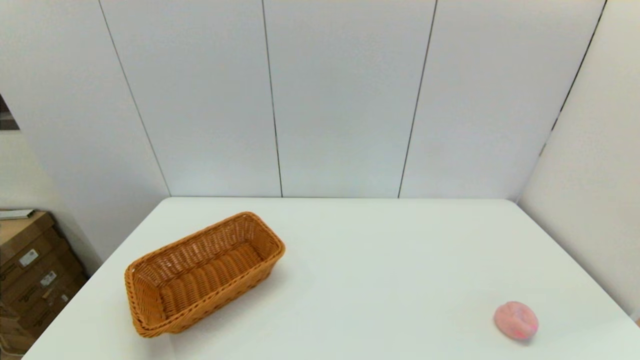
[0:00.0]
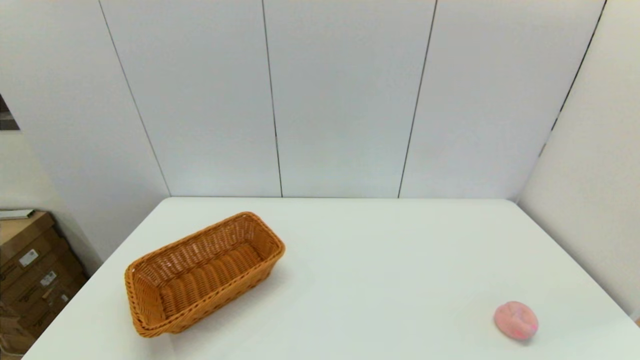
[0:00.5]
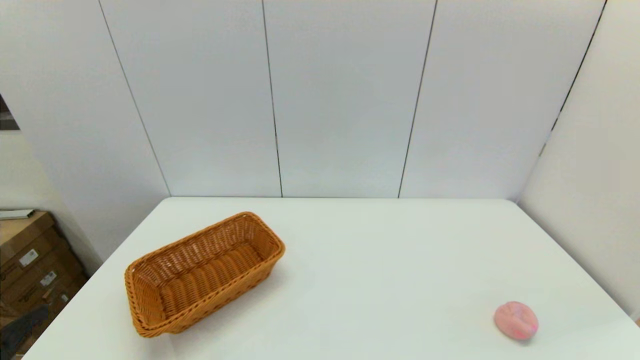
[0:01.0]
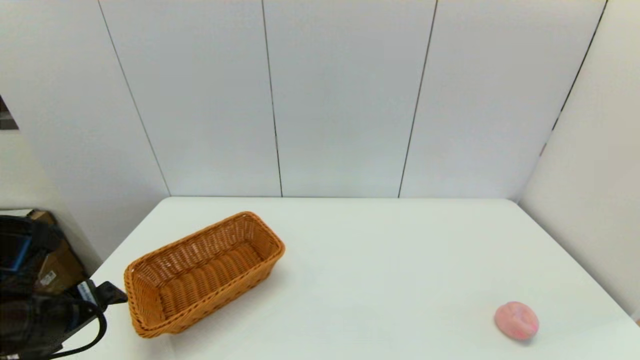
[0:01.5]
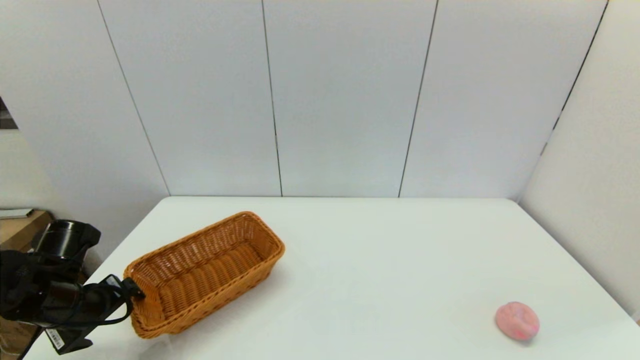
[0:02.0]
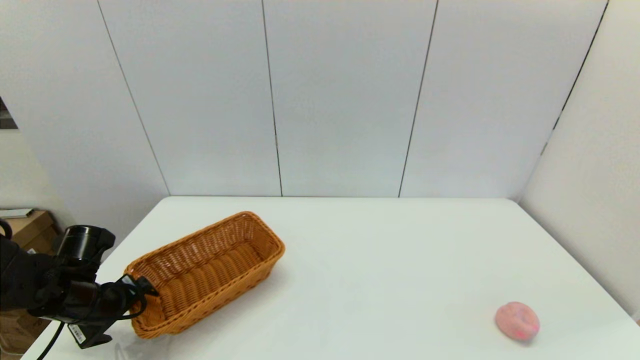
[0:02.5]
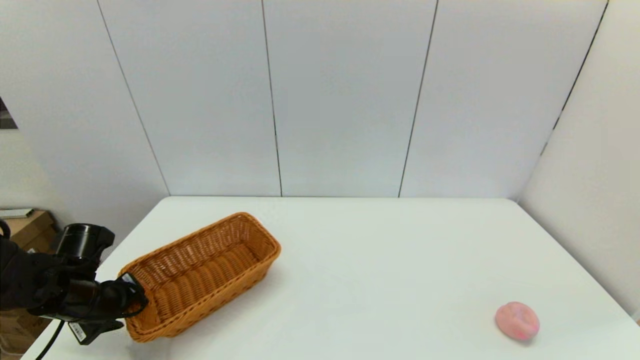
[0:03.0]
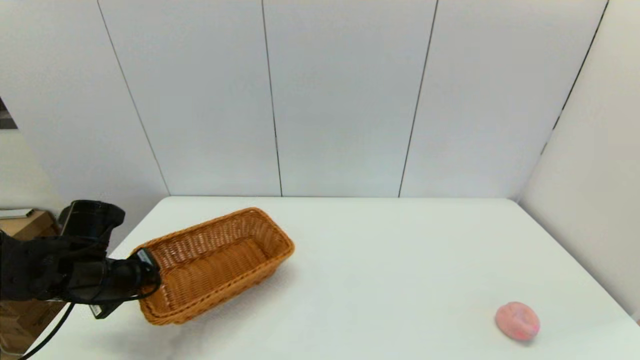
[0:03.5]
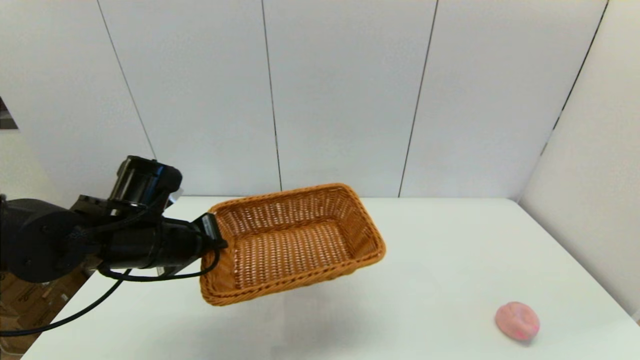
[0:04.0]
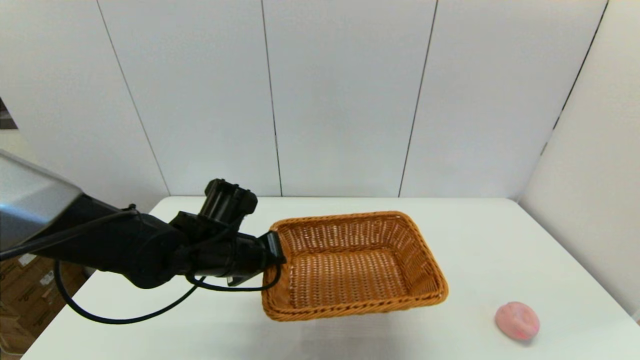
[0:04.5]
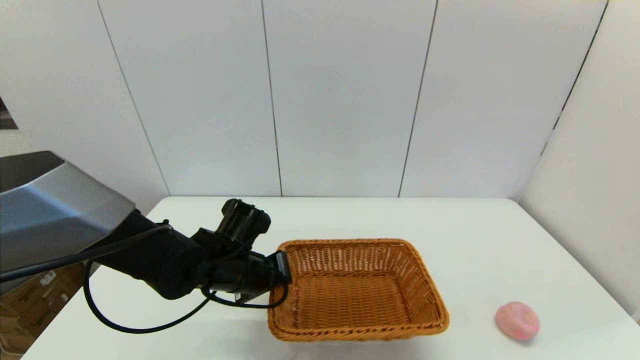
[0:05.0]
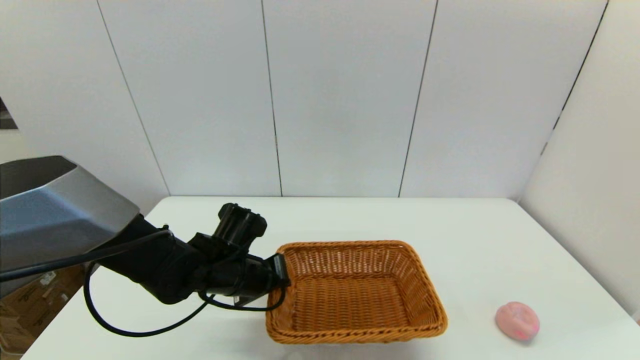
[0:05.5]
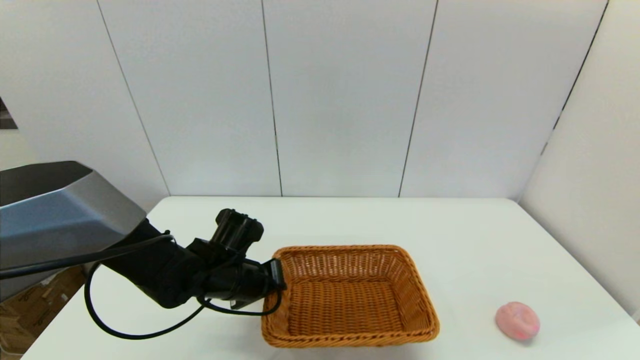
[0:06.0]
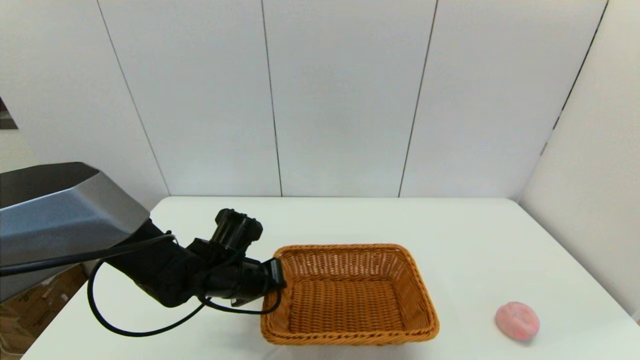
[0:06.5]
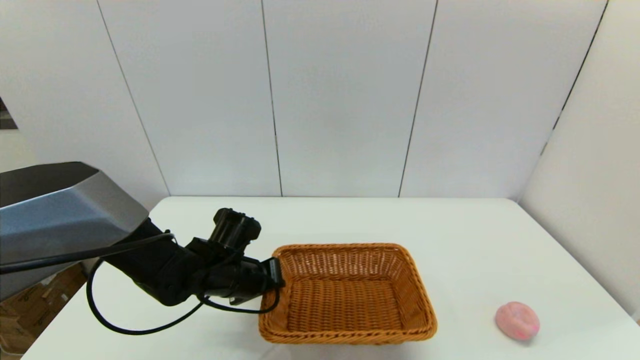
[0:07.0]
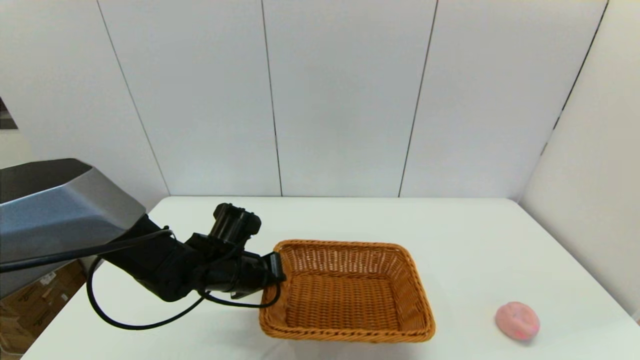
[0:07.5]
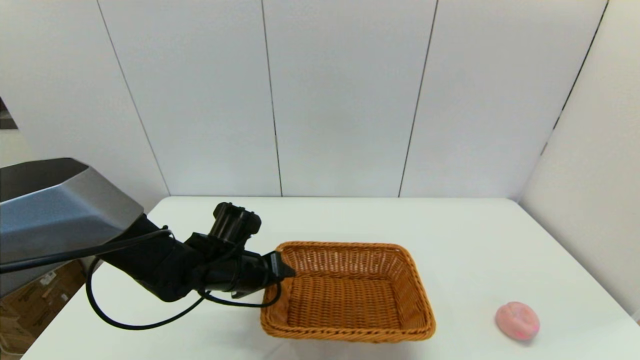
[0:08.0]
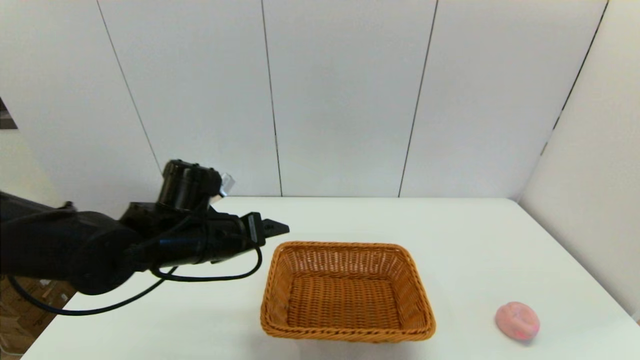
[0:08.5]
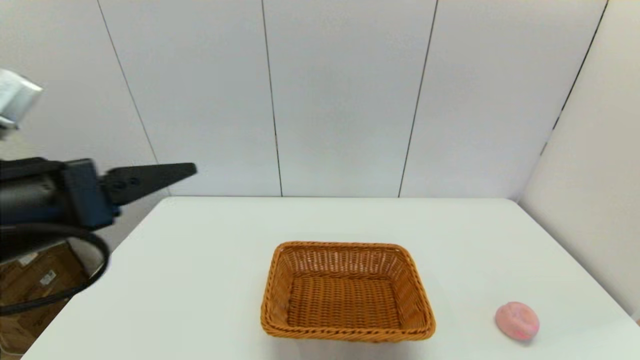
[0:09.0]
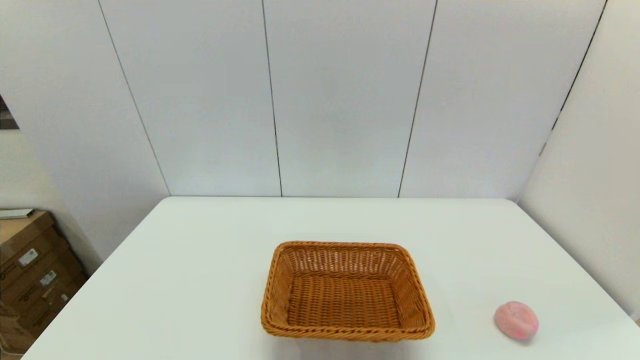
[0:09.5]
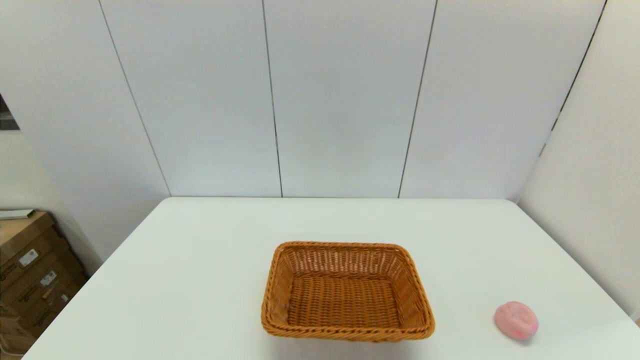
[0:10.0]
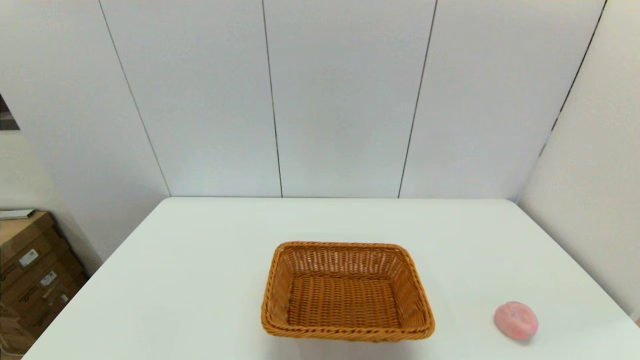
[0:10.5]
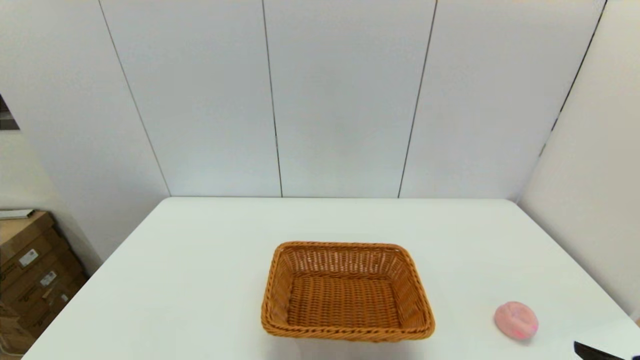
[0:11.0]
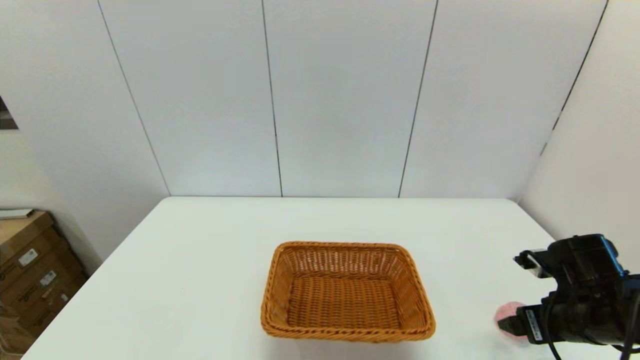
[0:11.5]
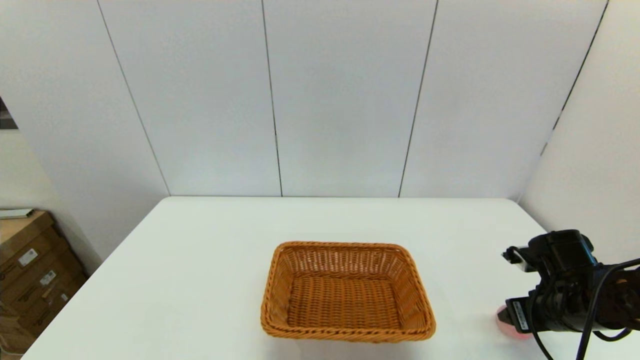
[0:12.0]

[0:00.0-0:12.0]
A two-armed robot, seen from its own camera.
Step, 0:00.0 to 0:03.0: Grasp the light basket with the left gripper.
Step, 0:03.5 to 0:08.0: Place the light basket on the middle of the table with the left gripper.
0:00.0 to 0:02.0: The left gripper goes about 25 cm forward.
0:02.0 to 0:04.0: The left gripper goes roughly 15 cm to the right and upward, and closes up.
0:04.0 to 0:06.0: The left gripper shifts some 15 cm downward and to the right.
0:06.0 to 0:08.0: The left gripper opens up.
0:08.0 to 0:10.0: The left gripper goes roughly 35 cm backward and to the left, and opens up.
0:10.0 to 0:12.0: The right gripper is displaced forward by approximately 25 cm.

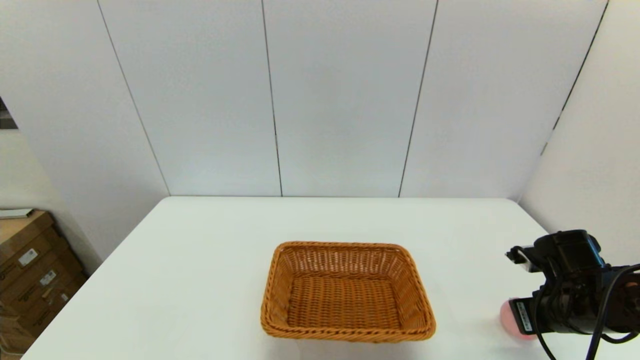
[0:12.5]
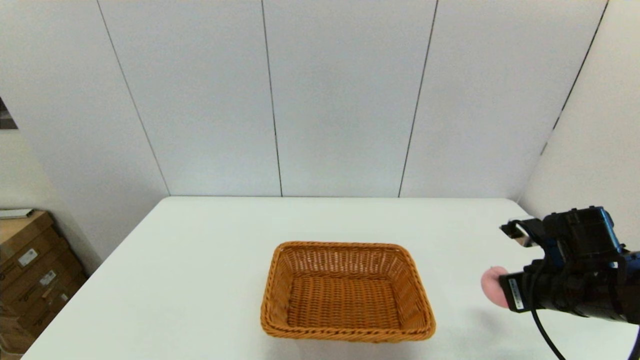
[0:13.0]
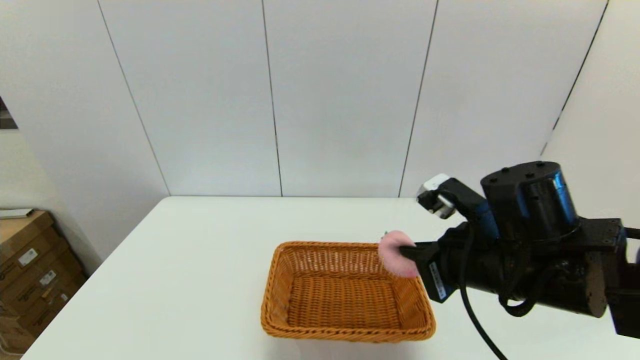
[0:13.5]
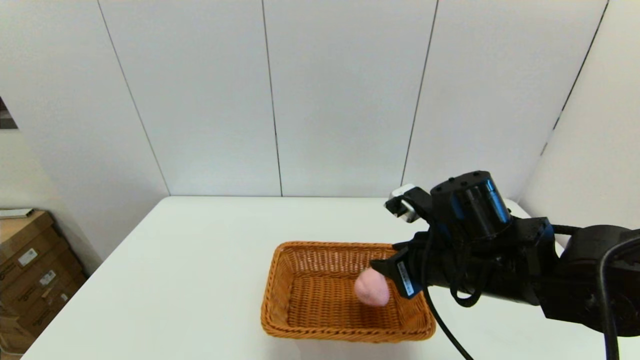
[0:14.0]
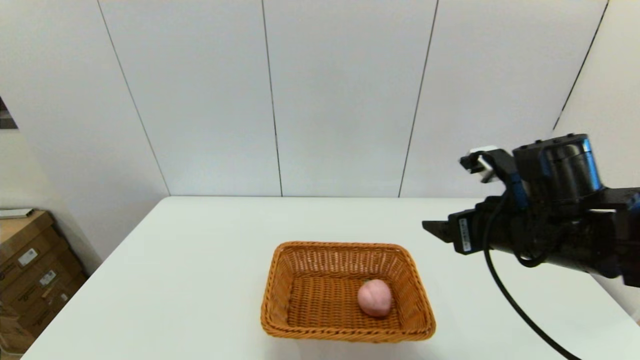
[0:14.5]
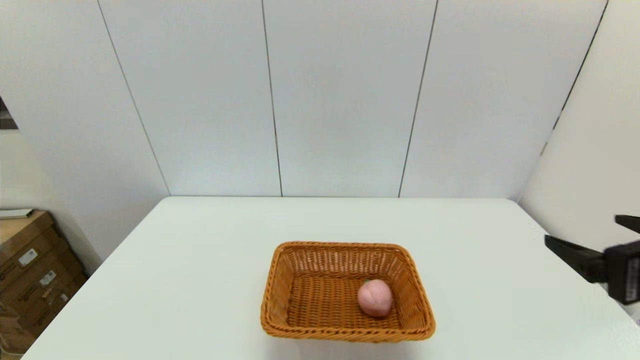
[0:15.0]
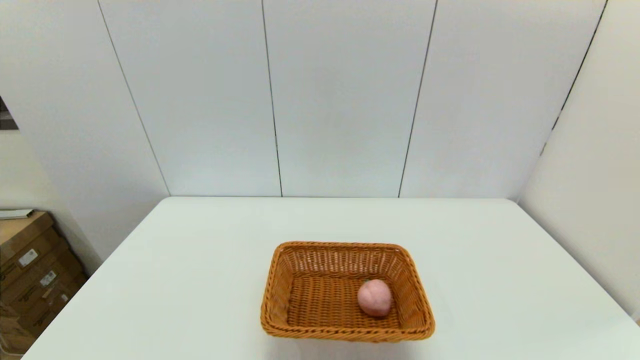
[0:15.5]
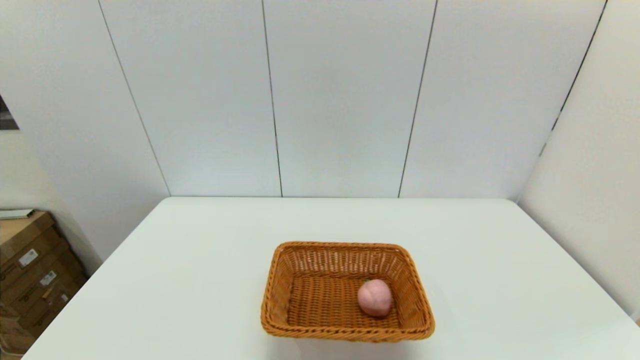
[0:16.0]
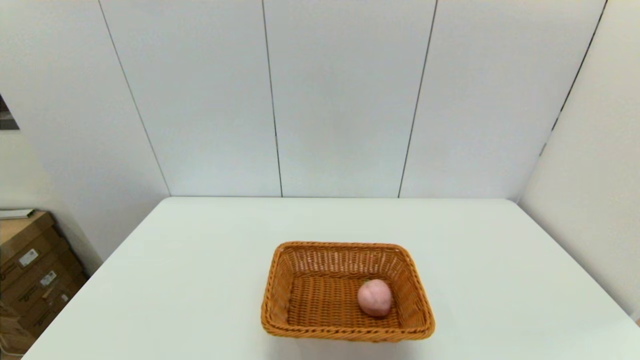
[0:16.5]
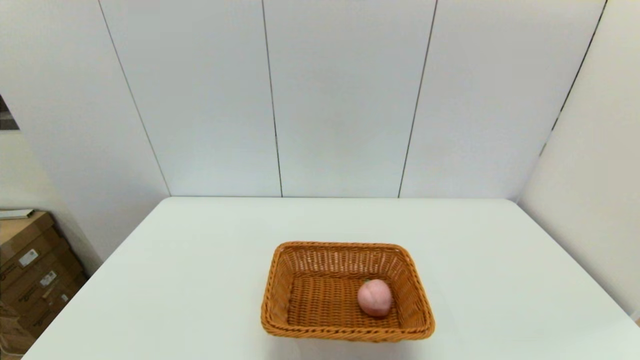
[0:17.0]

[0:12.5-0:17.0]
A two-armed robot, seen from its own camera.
Step, 0:13.0 to 0:13.5: Place the peach into the light basket with the right gripper.
0:12.5 to 0:14.5: The right gripper moves upward and to the left, some 20 cm, and opens.
0:14.5 to 0:17.0: The right gripper goes roughly 30 cm backward, downward and to the right.

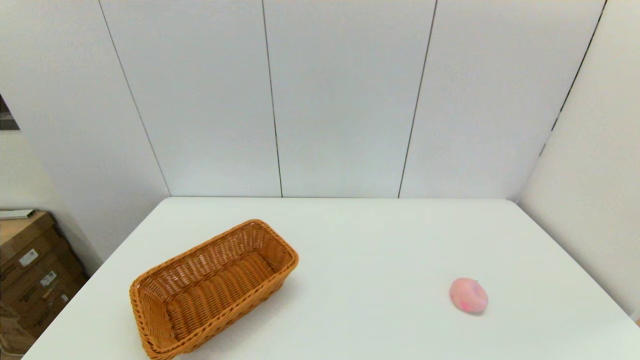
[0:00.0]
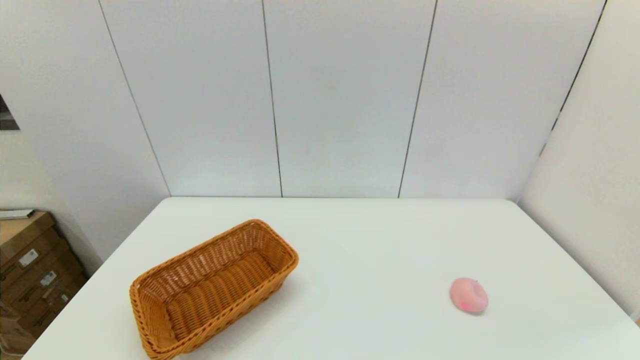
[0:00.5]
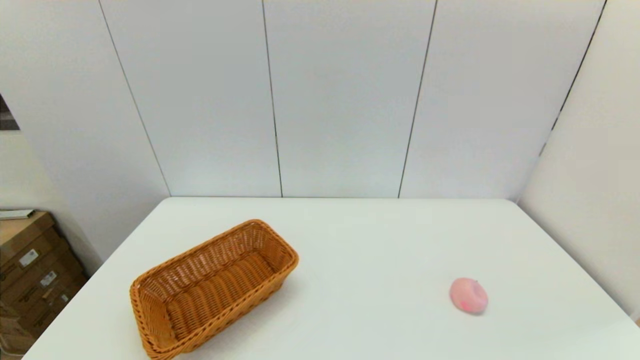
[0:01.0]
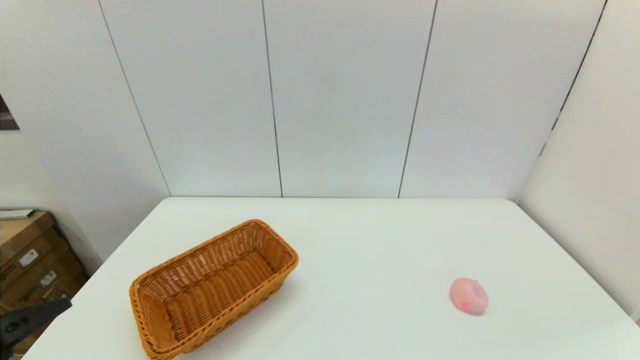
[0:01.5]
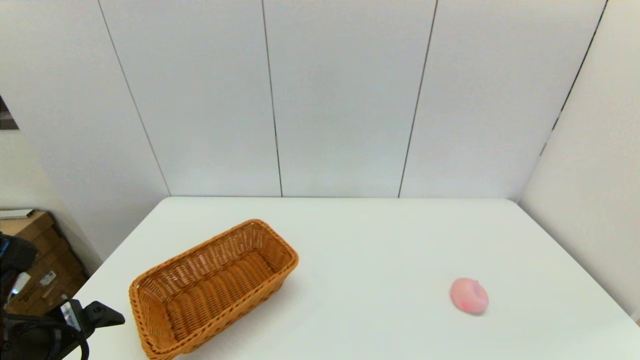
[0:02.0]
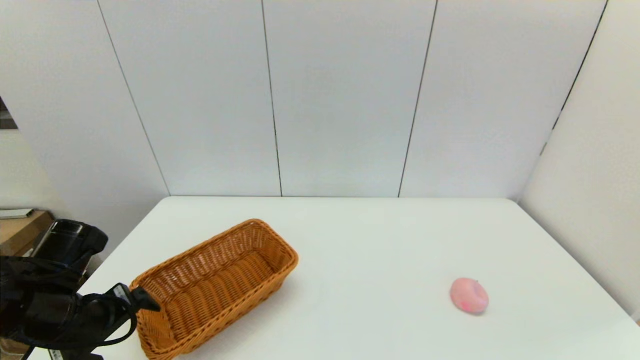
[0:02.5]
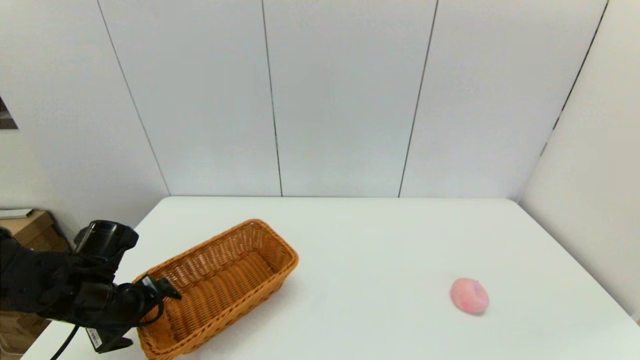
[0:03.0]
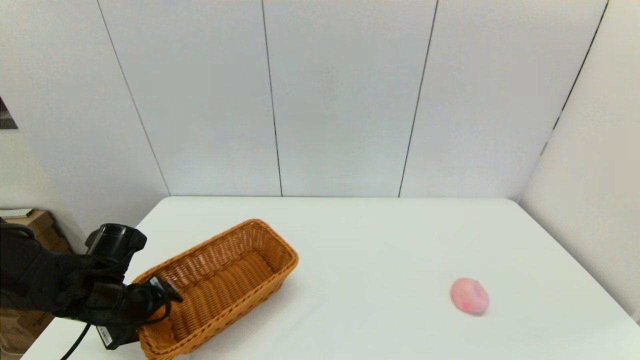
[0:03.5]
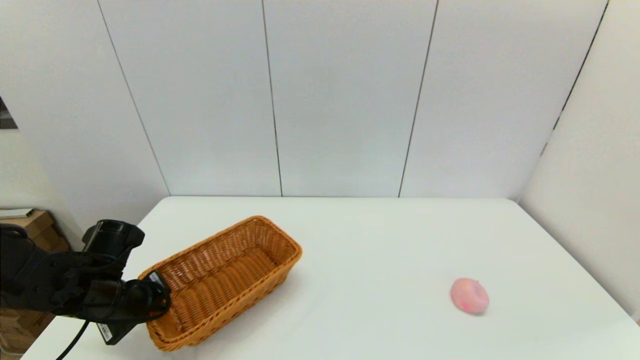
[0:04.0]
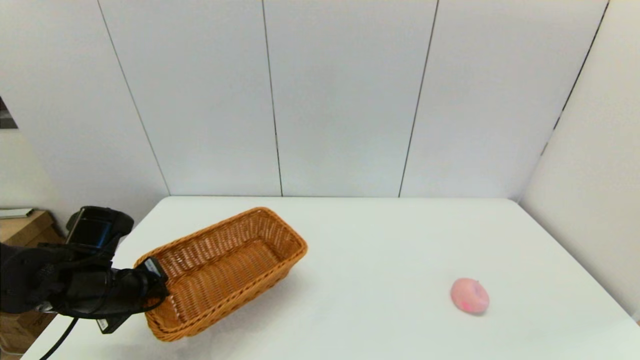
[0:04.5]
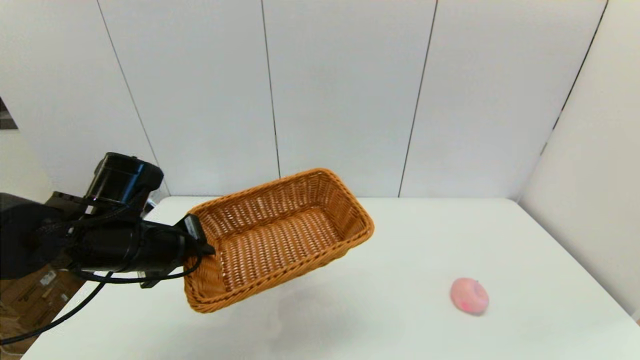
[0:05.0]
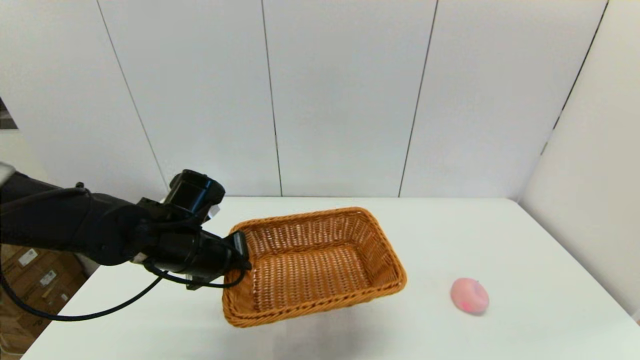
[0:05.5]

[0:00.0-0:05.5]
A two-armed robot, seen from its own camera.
Step, 0:00.0 to 0:04.0: Grasp the light basket with the left gripper.
0:00.0 to 0:02.0: The left gripper shifts some 15 cm forward.
0:02.0 to 0:03.5: The left gripper moves forward and downward, some 15 cm.
0:03.5 to 0:05.5: The left gripper is displaced to the right and upward by roughly 15 cm, and closes its fingers.
